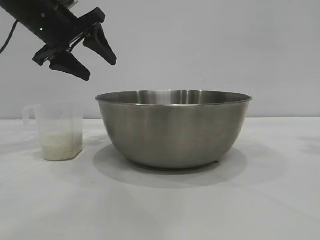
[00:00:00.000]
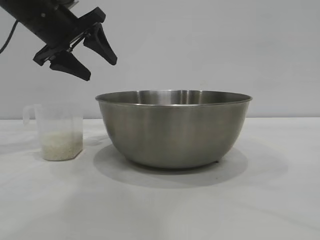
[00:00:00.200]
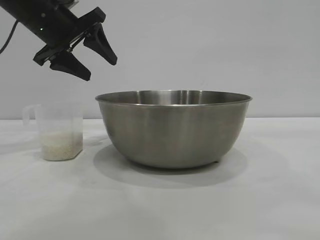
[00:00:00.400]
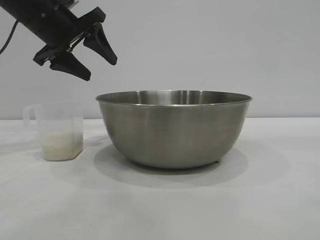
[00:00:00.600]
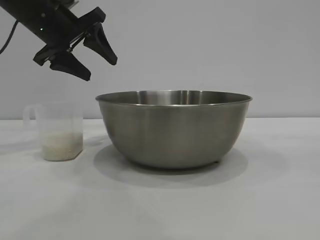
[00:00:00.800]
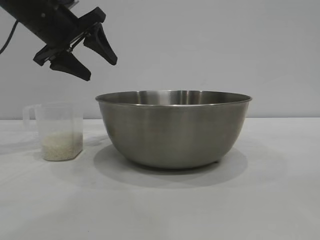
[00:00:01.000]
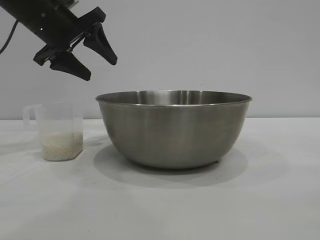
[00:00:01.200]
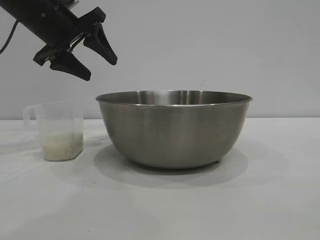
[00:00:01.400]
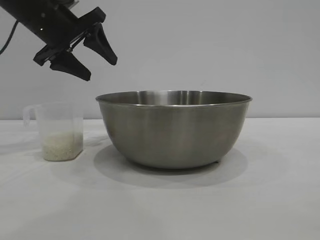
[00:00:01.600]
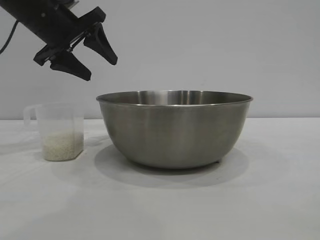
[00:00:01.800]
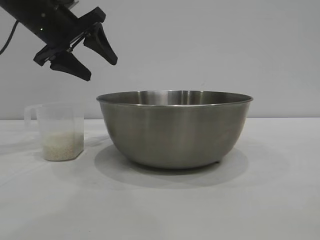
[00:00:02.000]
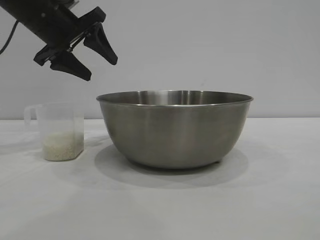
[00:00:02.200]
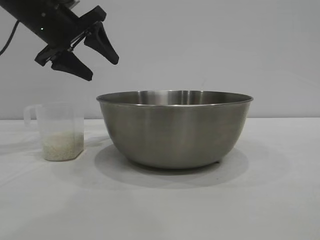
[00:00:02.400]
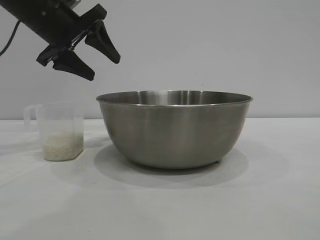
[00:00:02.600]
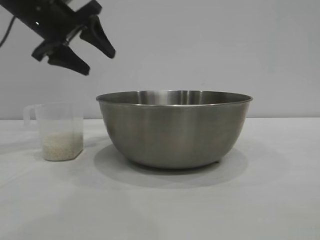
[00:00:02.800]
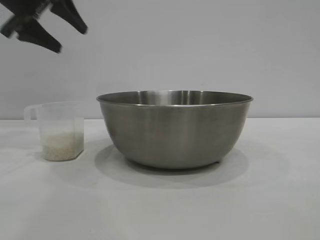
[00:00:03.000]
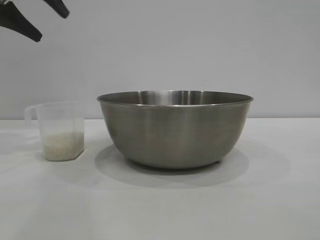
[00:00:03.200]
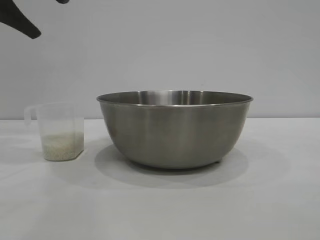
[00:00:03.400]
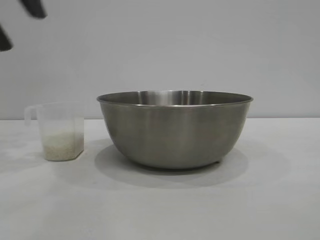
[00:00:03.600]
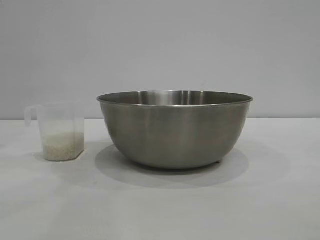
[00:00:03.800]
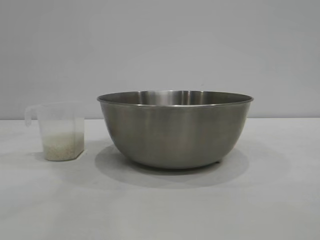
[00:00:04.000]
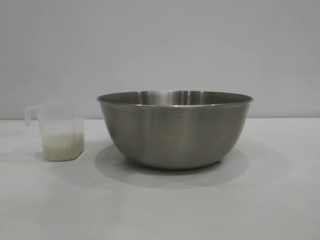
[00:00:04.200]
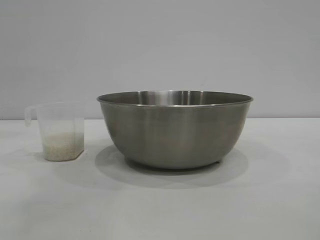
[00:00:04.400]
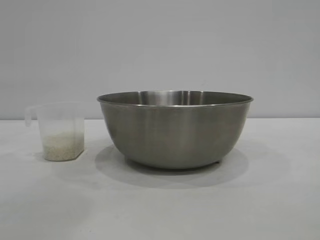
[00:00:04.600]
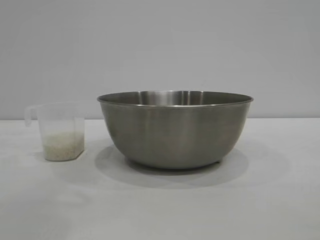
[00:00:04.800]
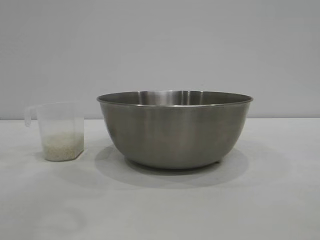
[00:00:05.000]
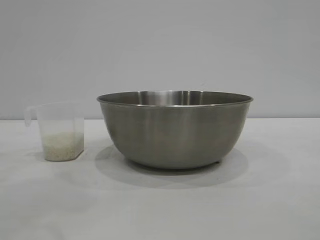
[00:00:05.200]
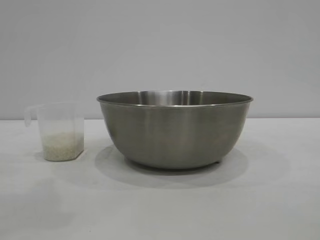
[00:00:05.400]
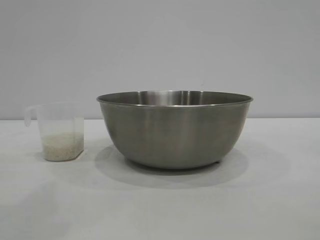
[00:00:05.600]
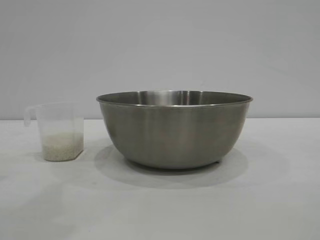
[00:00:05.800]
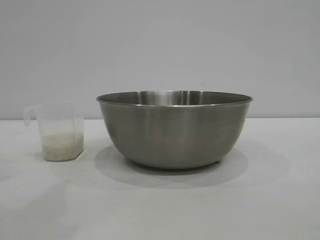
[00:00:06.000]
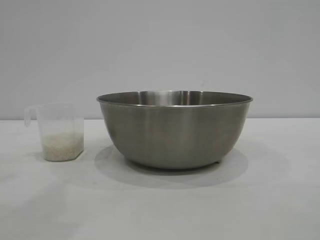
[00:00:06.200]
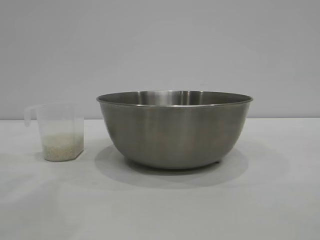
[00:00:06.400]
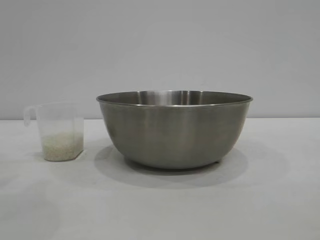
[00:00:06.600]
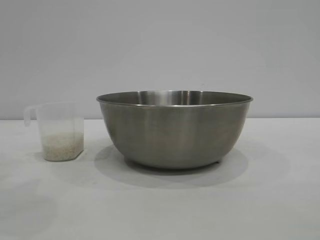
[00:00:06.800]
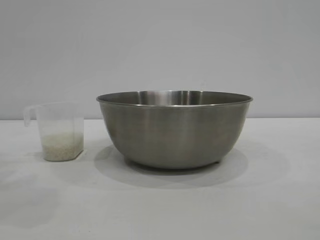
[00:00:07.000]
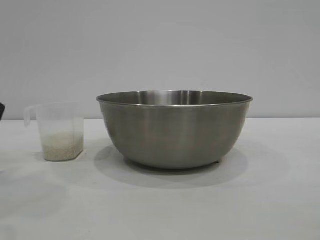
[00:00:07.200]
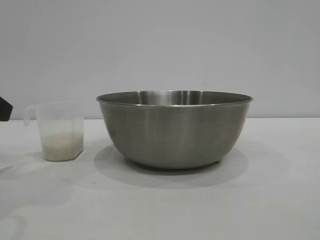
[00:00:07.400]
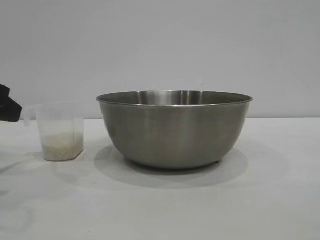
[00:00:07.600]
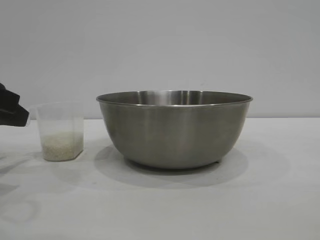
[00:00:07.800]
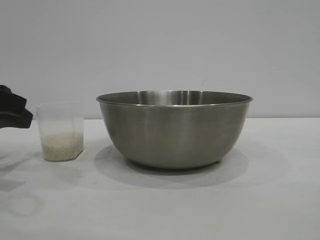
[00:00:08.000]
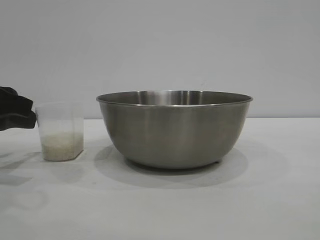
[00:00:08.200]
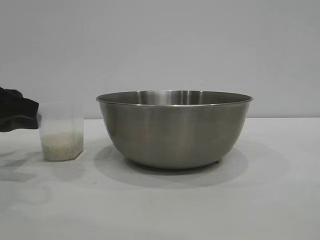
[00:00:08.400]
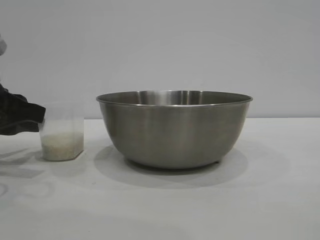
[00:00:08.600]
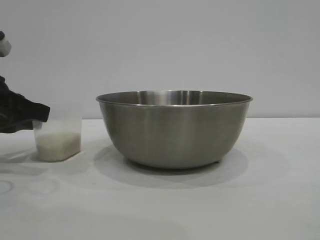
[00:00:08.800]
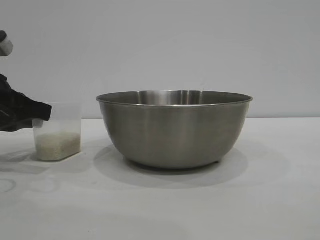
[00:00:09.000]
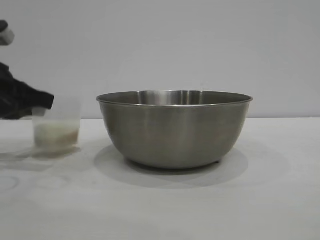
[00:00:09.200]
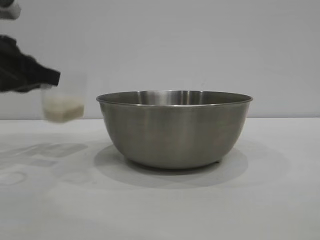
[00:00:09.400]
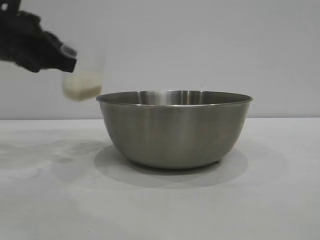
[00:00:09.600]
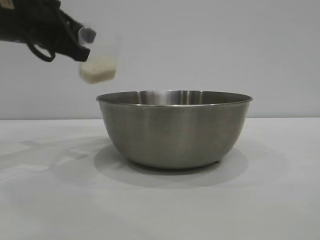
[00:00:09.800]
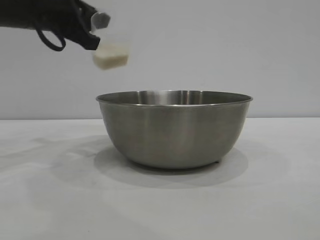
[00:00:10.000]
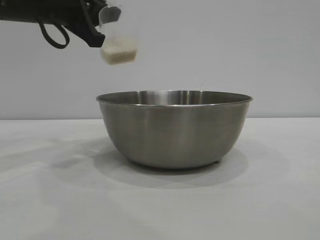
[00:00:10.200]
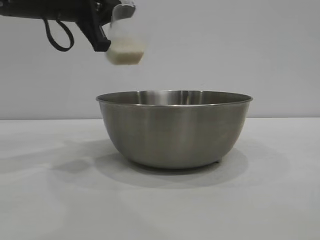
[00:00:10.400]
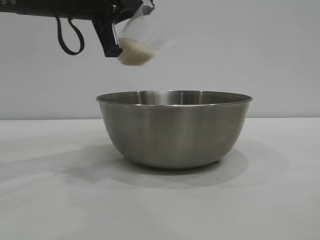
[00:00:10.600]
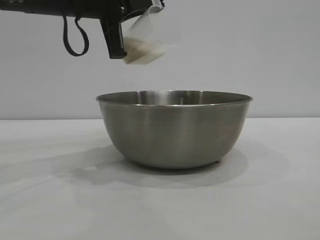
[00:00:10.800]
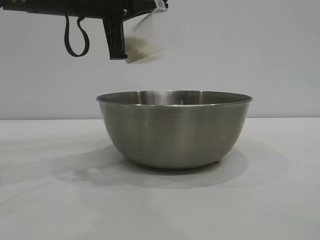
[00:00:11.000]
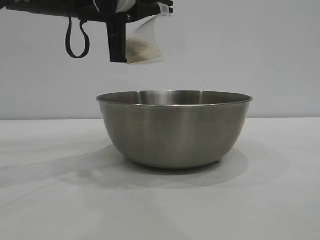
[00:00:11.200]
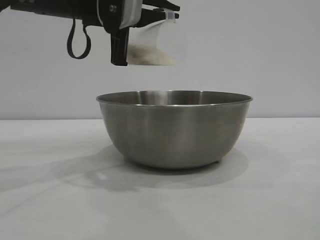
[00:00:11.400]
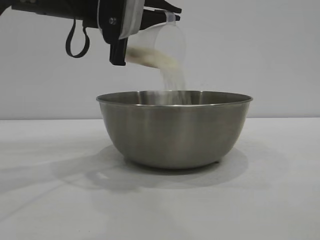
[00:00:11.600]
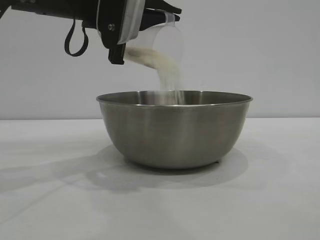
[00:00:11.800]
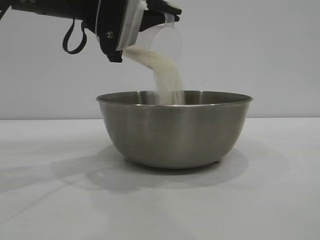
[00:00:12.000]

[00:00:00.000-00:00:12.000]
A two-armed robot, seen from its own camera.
Task of the whole recording: the right gripper grasp the rice container and place it in the center of the table, the left gripper grasp the rice scoop and pour the rice into the rice container.
Step, 00:00:00.000 to 00:00:09.200: Pick up the cup with rice in it with the left gripper.

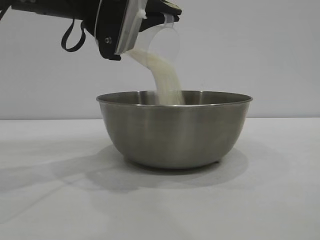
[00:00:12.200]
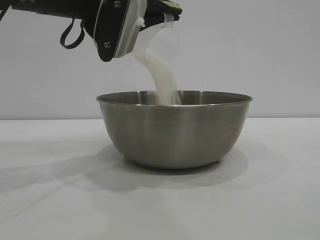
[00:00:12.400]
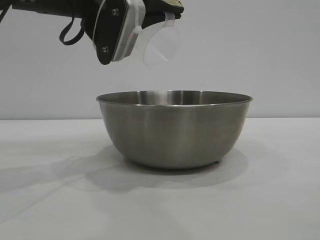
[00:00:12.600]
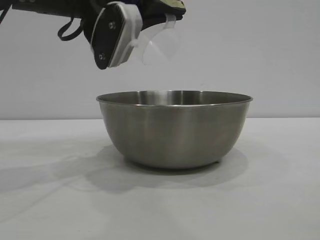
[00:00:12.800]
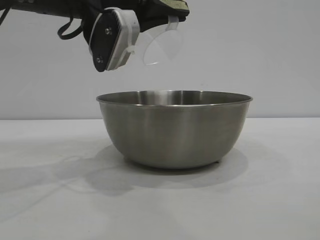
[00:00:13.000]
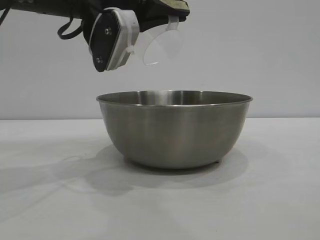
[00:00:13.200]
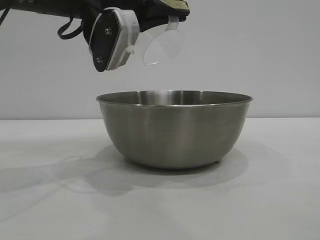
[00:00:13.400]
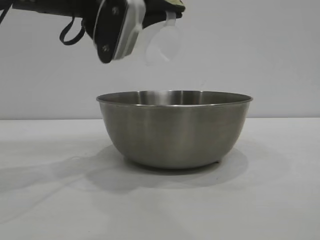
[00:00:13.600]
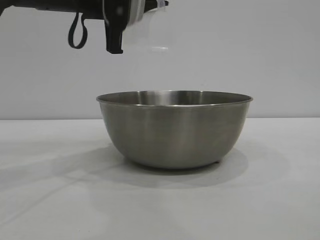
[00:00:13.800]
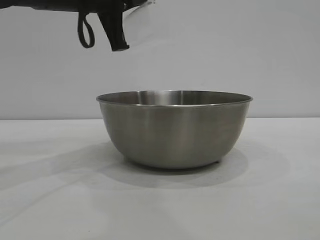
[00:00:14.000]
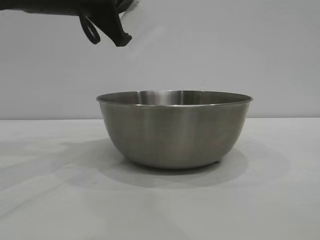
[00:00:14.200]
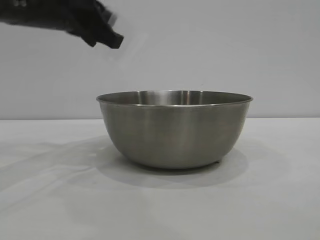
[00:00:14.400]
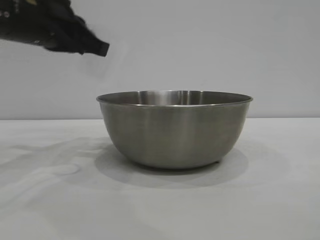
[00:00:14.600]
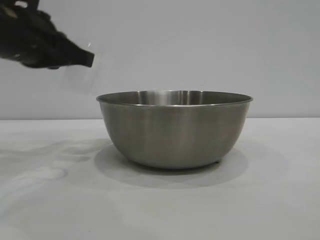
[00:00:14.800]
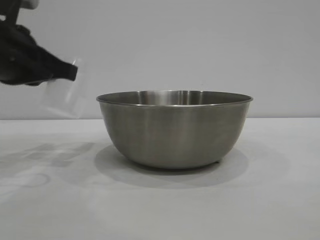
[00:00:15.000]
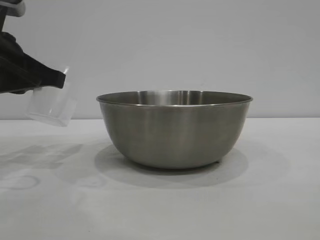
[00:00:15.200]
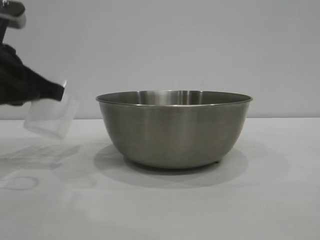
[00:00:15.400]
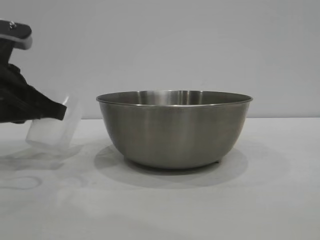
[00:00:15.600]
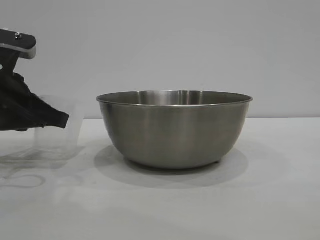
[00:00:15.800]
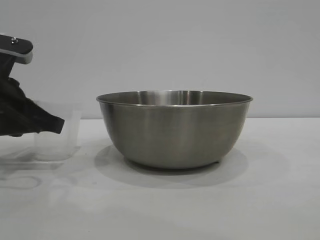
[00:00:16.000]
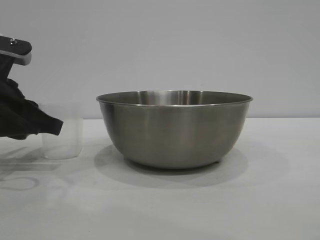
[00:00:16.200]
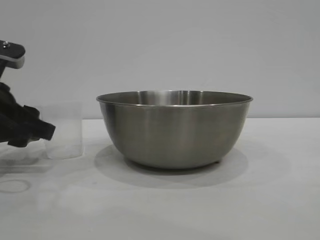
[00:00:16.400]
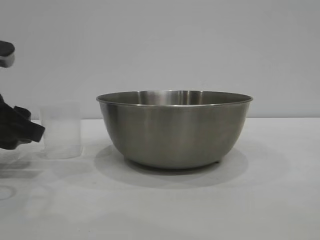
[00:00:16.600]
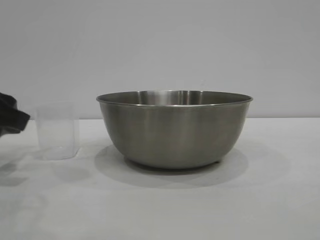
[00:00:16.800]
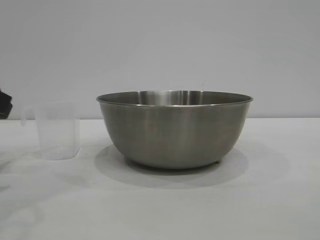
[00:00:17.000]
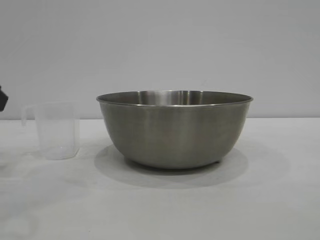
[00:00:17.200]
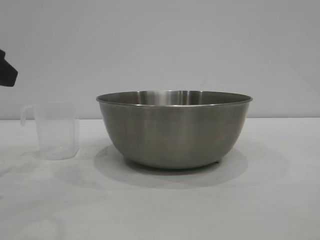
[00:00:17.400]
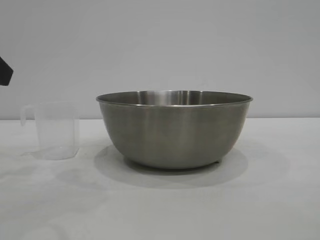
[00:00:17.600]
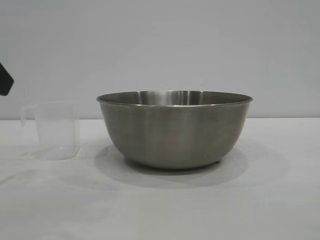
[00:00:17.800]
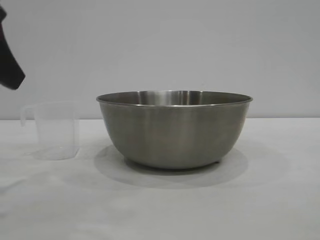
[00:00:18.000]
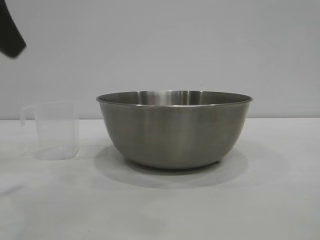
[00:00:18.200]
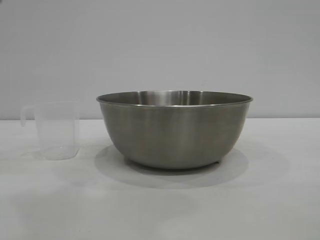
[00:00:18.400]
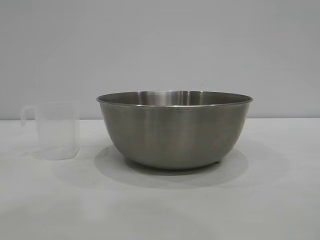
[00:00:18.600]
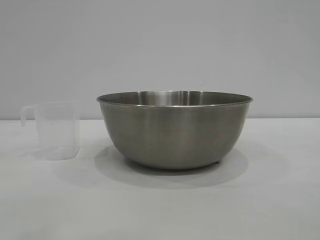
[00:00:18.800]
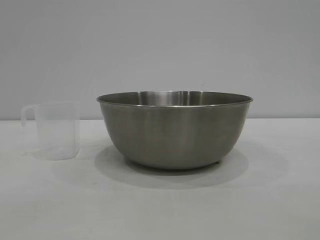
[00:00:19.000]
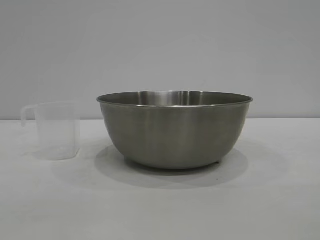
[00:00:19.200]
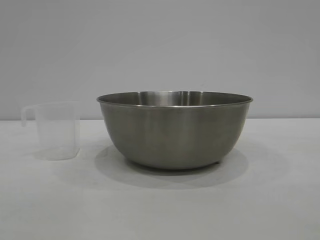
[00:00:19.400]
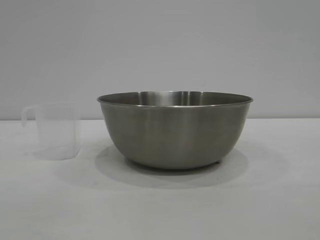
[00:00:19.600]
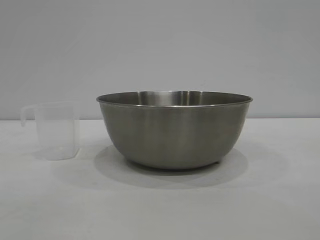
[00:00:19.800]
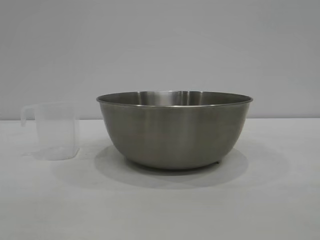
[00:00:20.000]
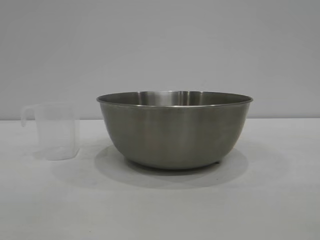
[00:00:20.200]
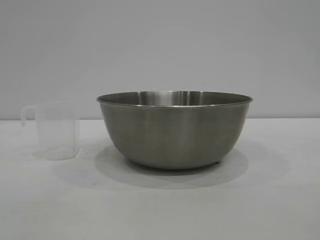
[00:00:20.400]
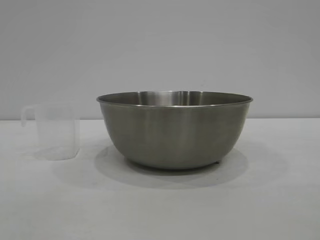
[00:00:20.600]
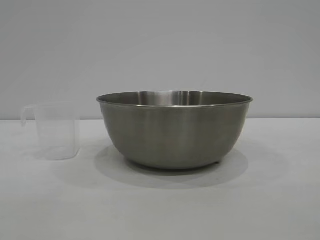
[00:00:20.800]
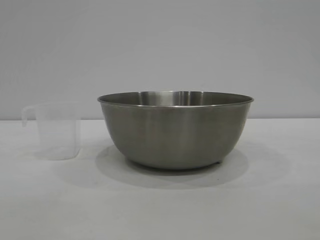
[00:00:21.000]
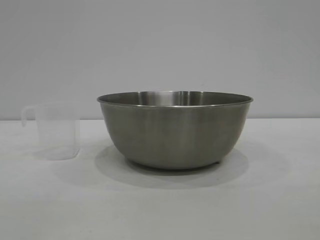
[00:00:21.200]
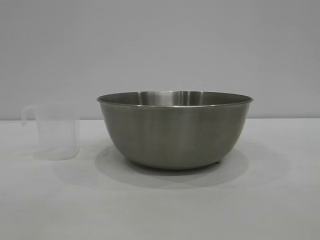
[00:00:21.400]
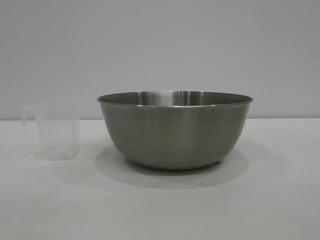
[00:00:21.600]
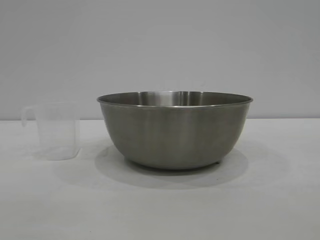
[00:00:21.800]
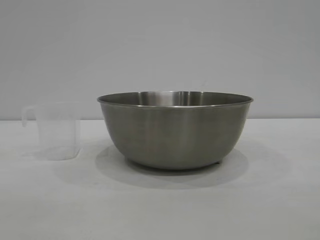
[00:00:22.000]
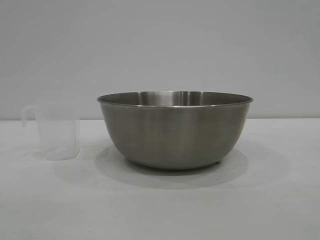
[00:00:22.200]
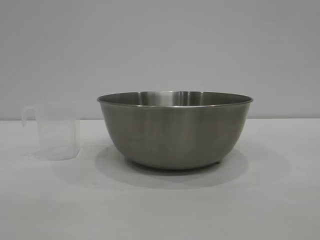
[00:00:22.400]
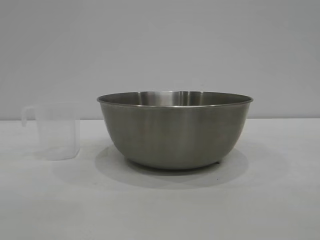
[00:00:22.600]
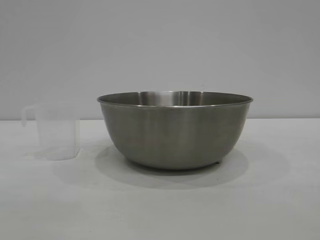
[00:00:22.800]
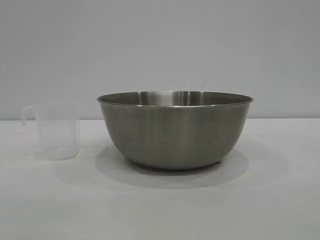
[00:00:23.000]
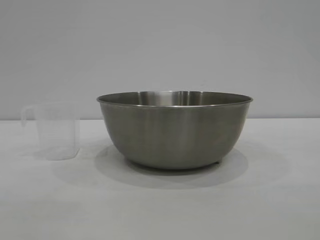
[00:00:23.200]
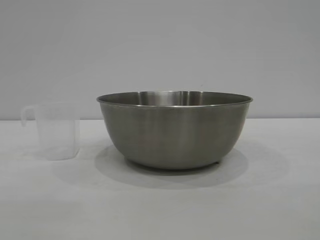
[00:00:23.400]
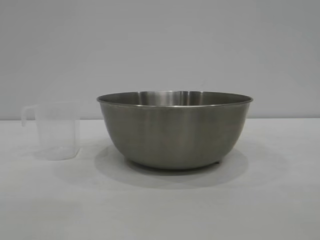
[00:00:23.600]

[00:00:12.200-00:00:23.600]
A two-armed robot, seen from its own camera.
Task of the whole recording: the right gripper grasp the rice container and place it in the center of the table, the left gripper grasp the rice scoop and pour the rice into the rice container.
Step, 00:00:13.000 to 00:00:17.000: Place the cup on the table with the left gripper.
